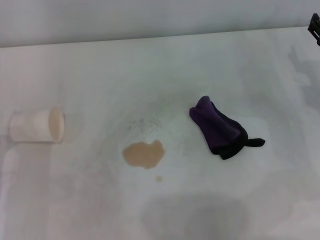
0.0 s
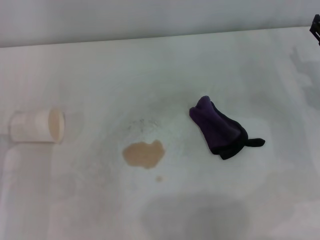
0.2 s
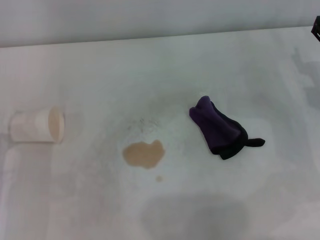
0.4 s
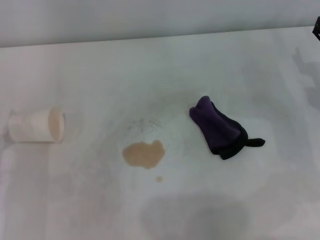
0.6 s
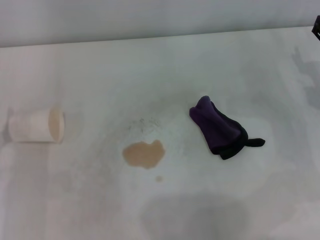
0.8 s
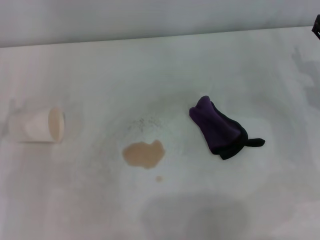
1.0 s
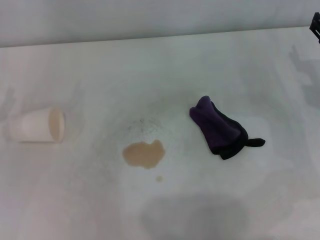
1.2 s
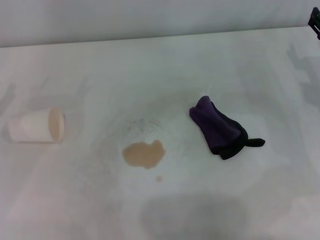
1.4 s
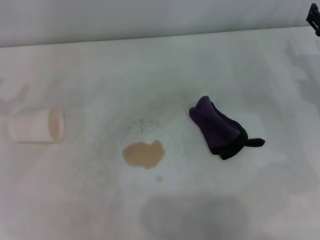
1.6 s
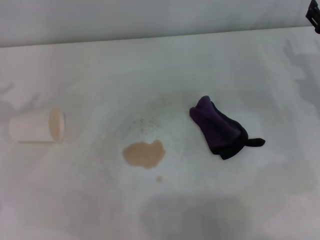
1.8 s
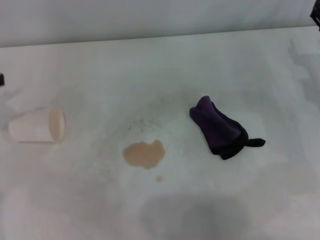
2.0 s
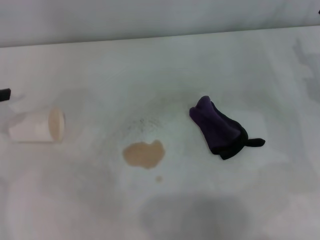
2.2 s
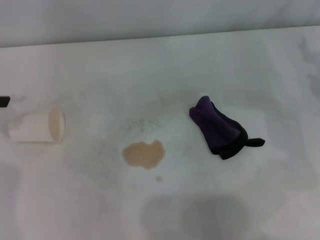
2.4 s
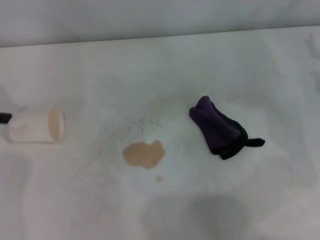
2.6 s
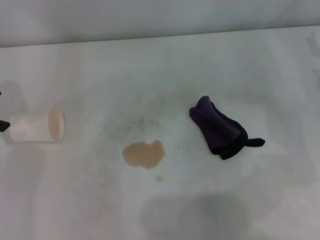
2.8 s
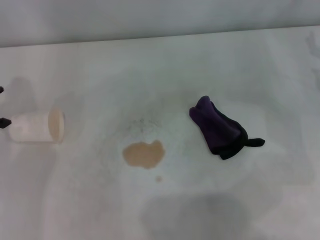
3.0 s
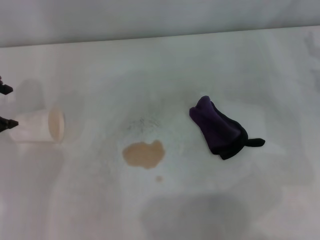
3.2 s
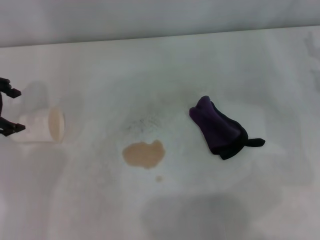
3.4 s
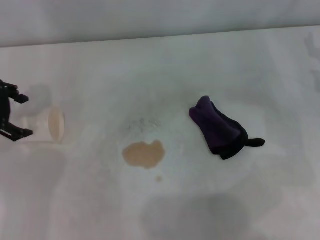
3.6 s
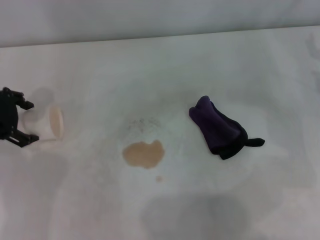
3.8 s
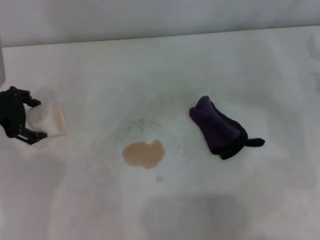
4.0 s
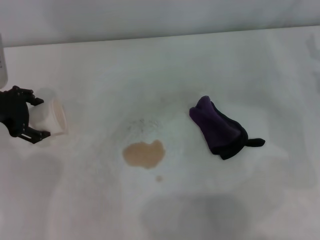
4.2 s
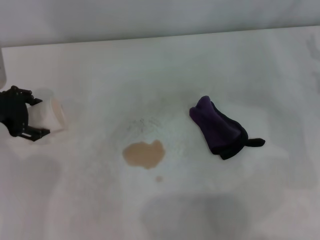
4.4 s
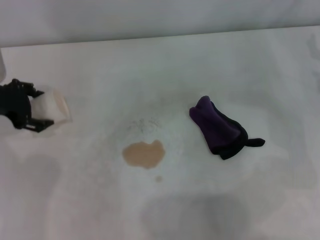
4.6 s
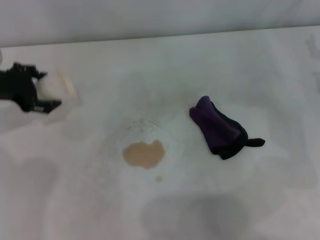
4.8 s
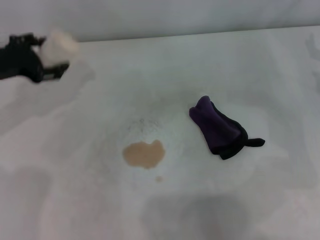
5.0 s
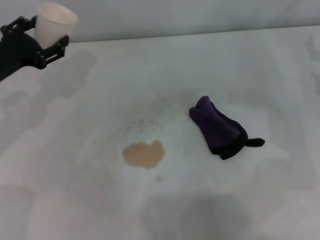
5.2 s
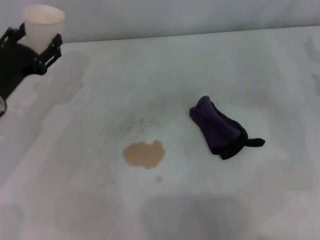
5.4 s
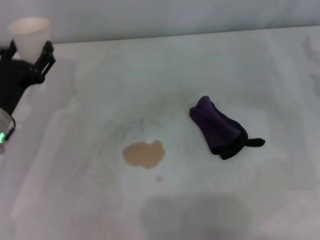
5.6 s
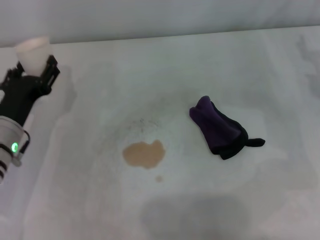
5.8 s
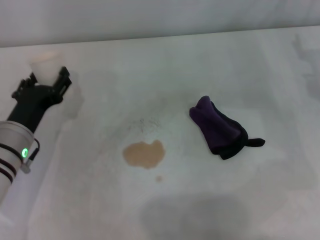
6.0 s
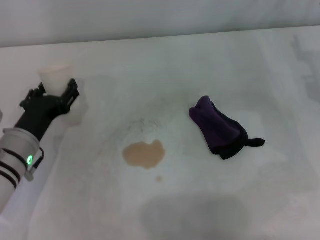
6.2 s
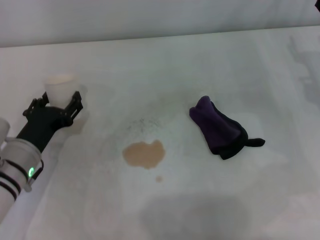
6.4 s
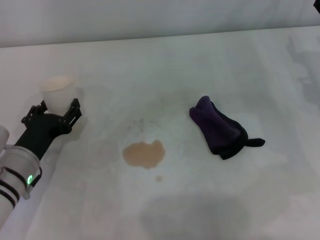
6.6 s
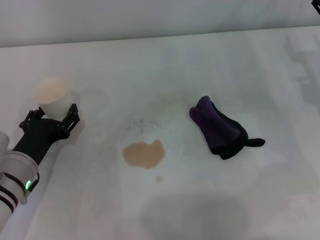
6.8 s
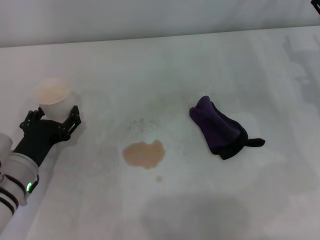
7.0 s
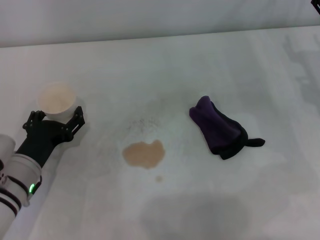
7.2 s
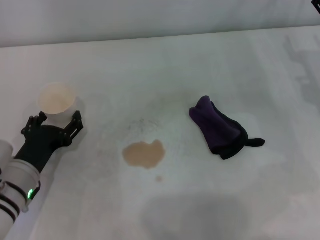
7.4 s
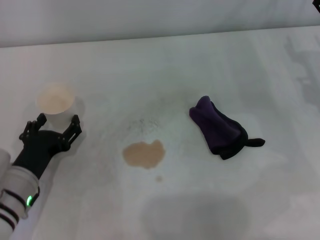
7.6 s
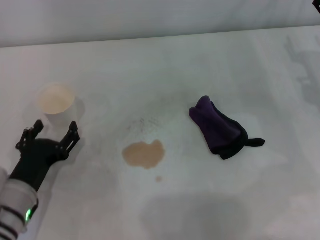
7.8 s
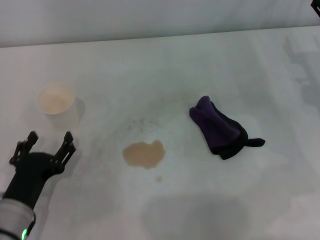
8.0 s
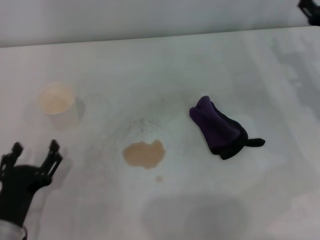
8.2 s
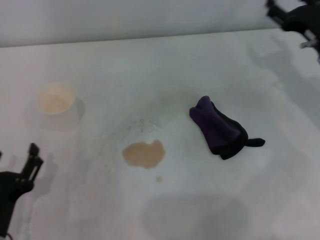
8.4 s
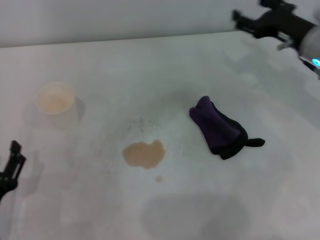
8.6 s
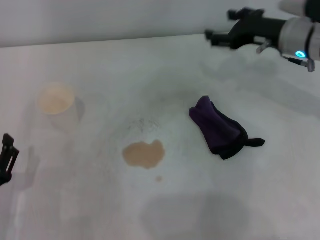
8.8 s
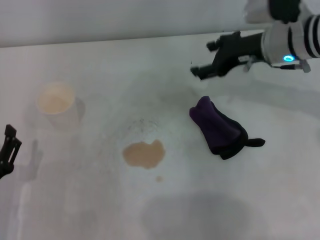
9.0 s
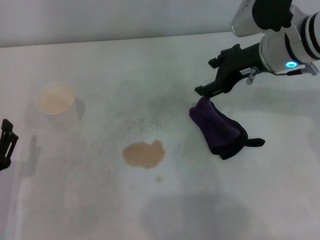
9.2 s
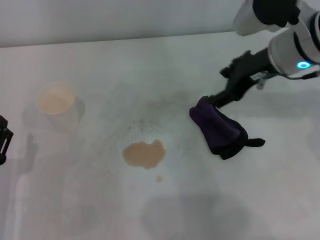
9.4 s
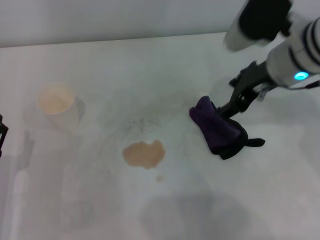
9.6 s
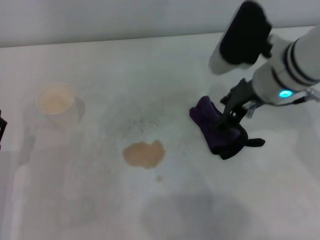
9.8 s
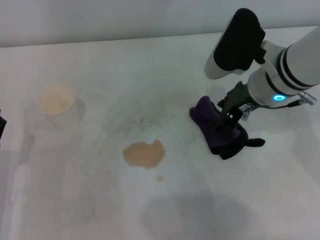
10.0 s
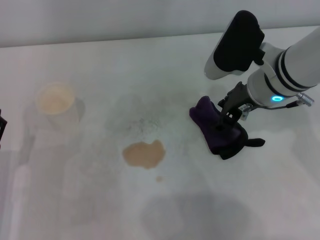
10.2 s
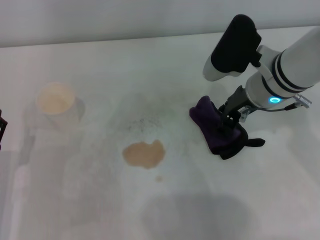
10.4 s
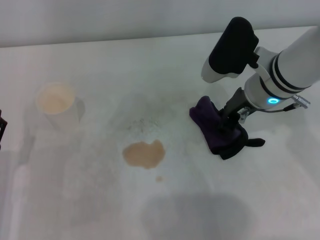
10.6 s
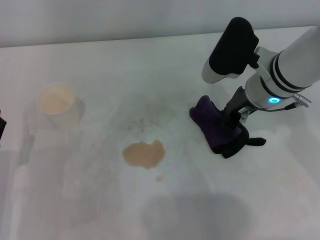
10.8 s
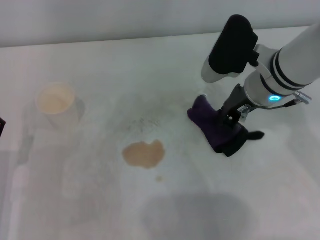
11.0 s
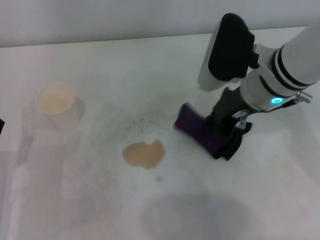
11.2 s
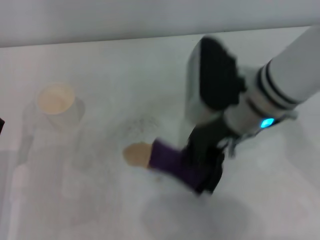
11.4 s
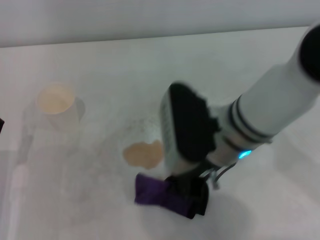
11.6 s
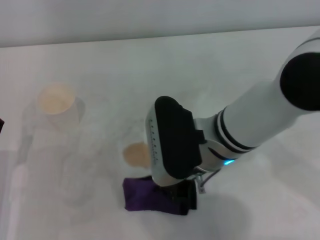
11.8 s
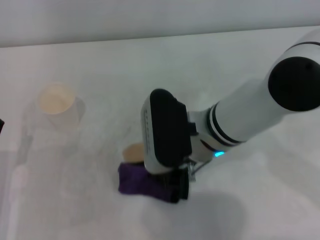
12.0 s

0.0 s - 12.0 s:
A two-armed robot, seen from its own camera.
Step, 0.0 s - 4.2 s: Grasp the paper cup with the left gripper.
Step, 4.6 s - 7.0 s: Stand the paper cup upright with the left gripper.
Step, 7.2 s - 10.8 s: Grasp the rag with the right gripper.
3.0 s - 4.4 s: The left gripper travels downward by roughly 5 cm.
4.4 s - 6.0 s: The left gripper moves downward, backward and to the right, approximately 15 cm.
6.0 s - 7.6 s: The left gripper is displaced backward by roughly 5 cm.
7.6 s - 9.0 s: The left gripper is displaced backward by some 10 cm; the right gripper goes some 15 cm to the left and upward.
9.0 s - 10.4 s: The right gripper moves some 5 cm.
10.4 s - 12.0 s: The right gripper travels to the left and backward by roughly 10 cm, and closes up.

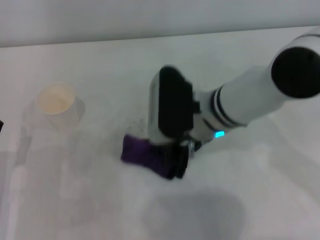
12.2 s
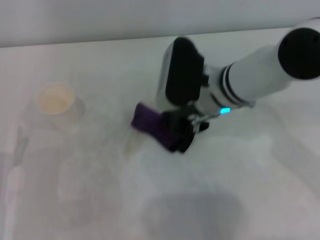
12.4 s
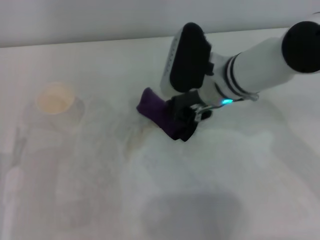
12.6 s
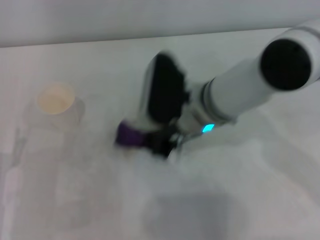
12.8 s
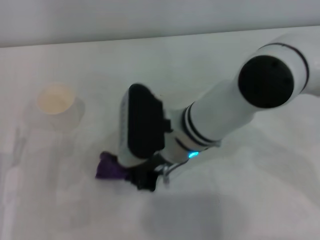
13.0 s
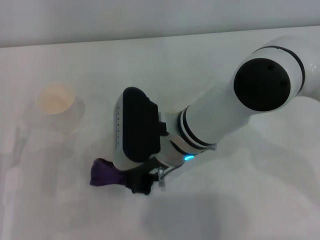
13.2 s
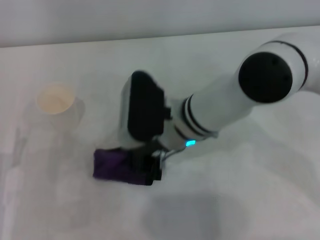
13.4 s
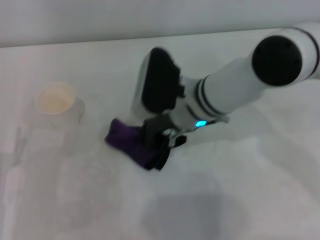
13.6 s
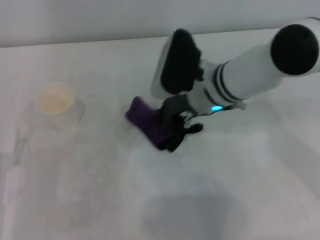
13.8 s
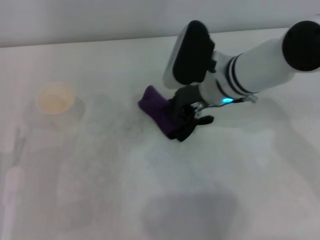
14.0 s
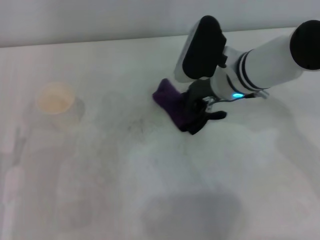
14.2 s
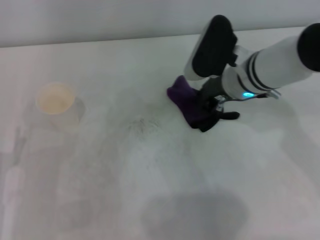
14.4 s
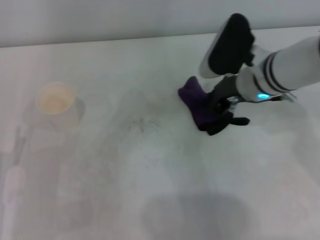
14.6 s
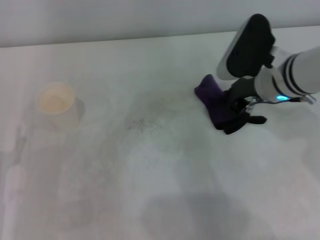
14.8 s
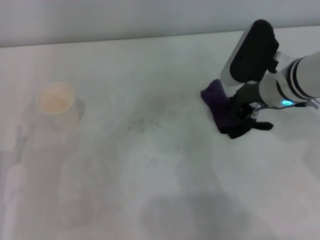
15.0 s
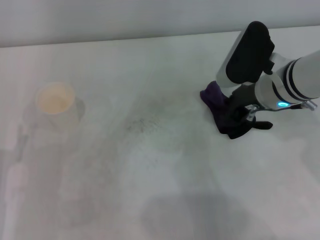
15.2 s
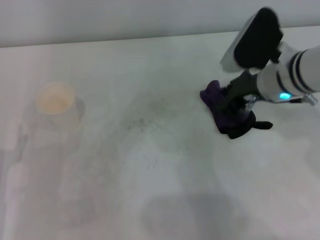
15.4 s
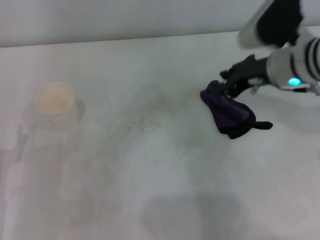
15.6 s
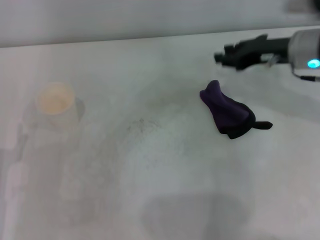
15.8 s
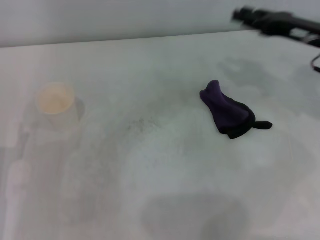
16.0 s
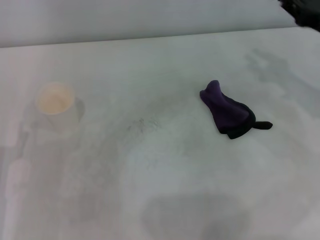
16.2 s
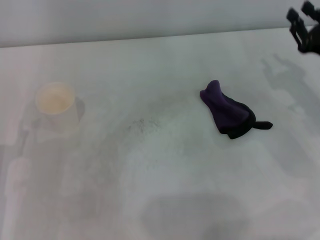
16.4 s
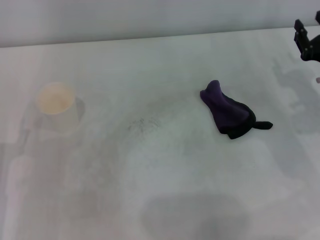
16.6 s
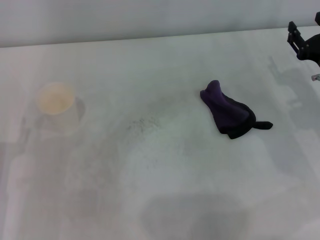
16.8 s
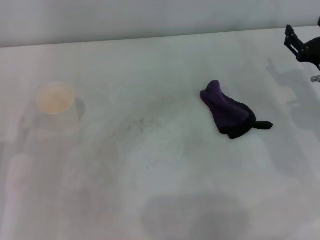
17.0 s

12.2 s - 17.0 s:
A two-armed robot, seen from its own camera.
Step, 12.2 s - 14.4 s: Wipe the stains off the table with the right gripper.
Step, 14.6 s - 15.2 s: Place the rag on the table with the right gripper.
12.2 s - 13.8 s: The right gripper goes to the left and returns, some 5 cm each way.
13.8 s - 15.4 s: The right gripper moves to the right, some 10 cm.
15.4 s - 17.0 s: The right gripper travels to the right and downward by about 15 cm, and opens up.
